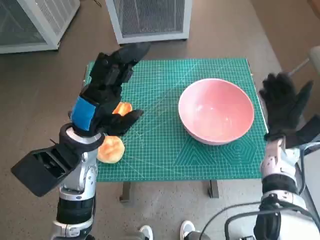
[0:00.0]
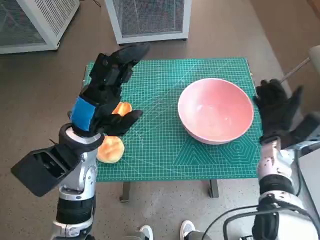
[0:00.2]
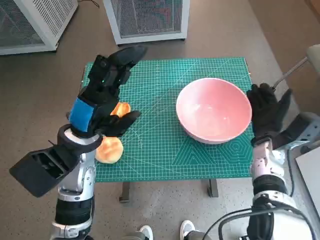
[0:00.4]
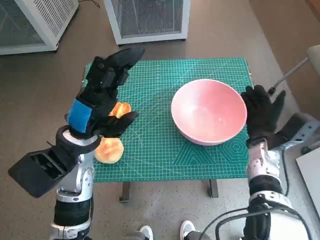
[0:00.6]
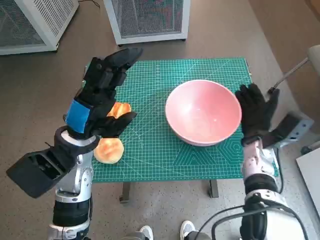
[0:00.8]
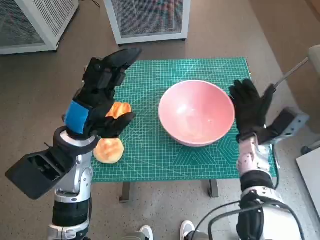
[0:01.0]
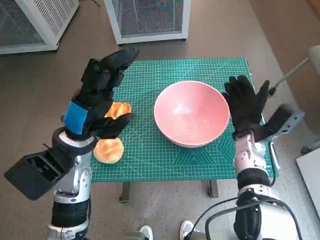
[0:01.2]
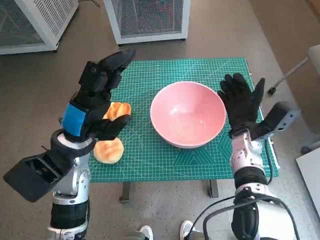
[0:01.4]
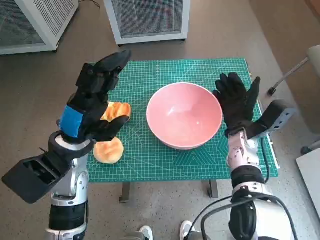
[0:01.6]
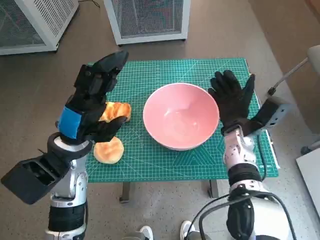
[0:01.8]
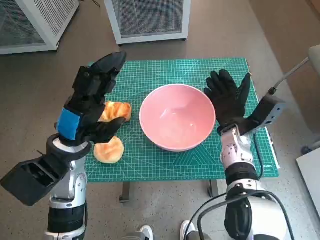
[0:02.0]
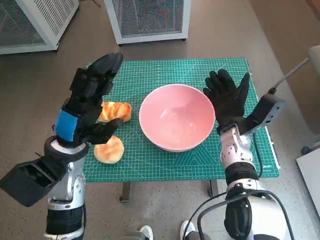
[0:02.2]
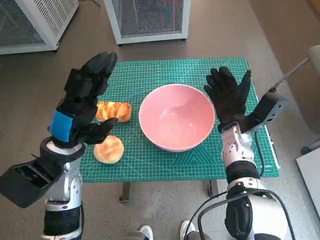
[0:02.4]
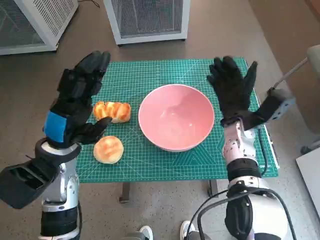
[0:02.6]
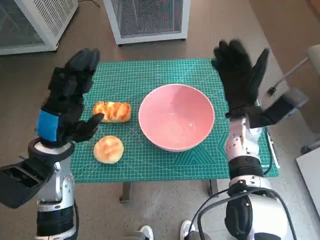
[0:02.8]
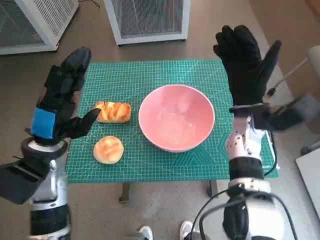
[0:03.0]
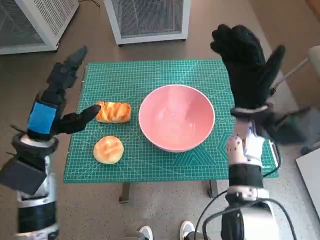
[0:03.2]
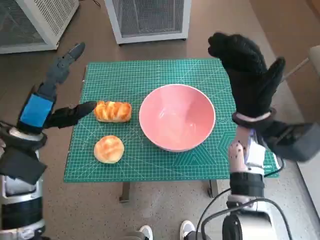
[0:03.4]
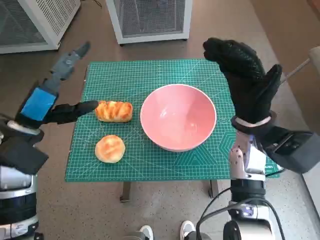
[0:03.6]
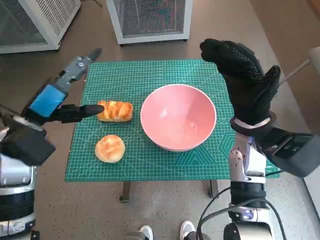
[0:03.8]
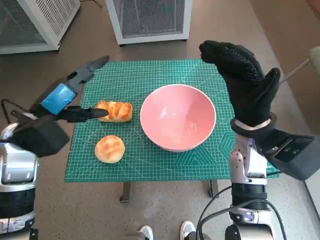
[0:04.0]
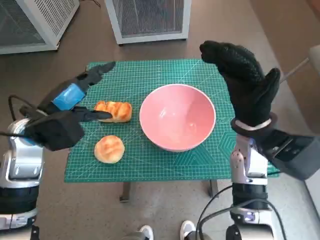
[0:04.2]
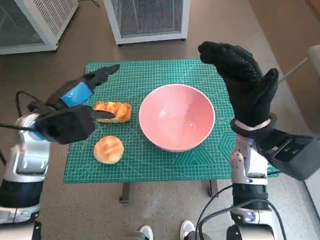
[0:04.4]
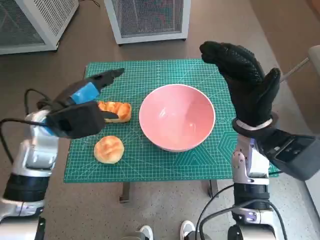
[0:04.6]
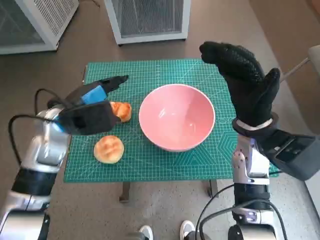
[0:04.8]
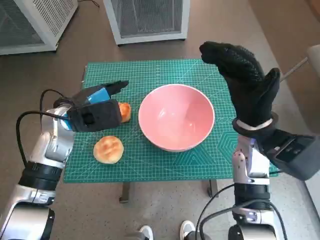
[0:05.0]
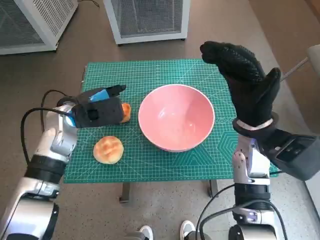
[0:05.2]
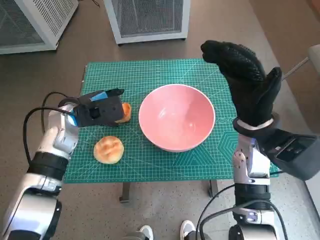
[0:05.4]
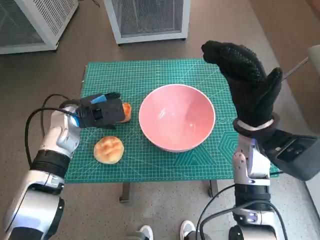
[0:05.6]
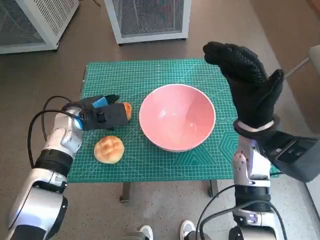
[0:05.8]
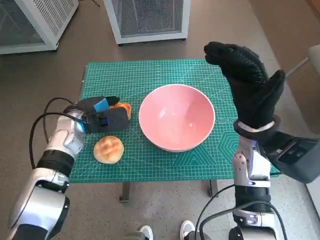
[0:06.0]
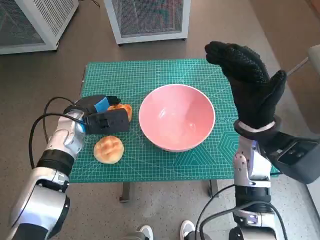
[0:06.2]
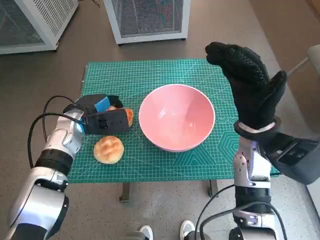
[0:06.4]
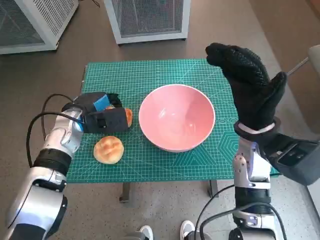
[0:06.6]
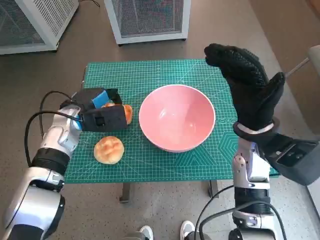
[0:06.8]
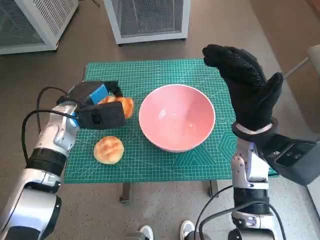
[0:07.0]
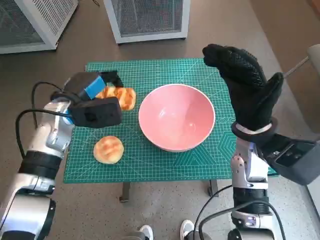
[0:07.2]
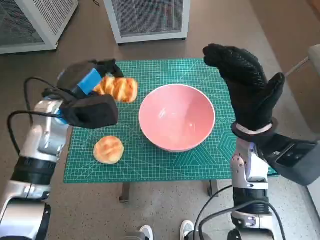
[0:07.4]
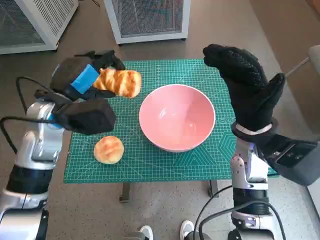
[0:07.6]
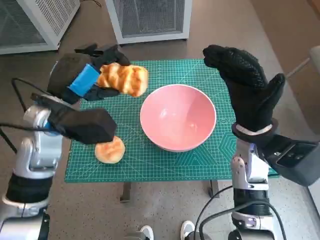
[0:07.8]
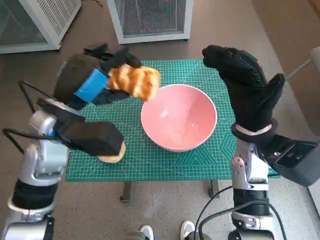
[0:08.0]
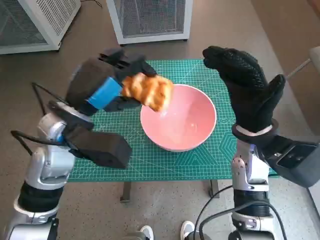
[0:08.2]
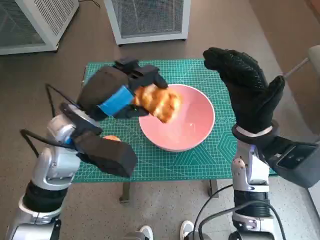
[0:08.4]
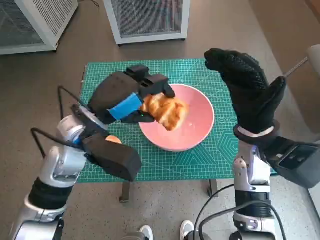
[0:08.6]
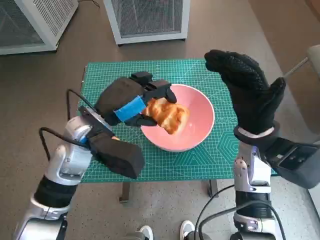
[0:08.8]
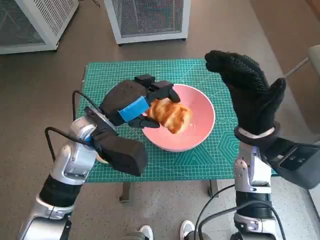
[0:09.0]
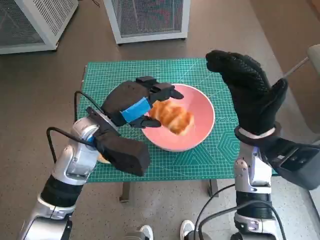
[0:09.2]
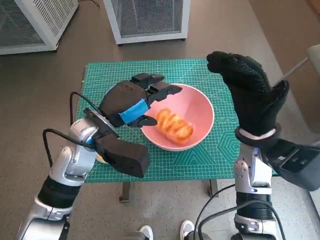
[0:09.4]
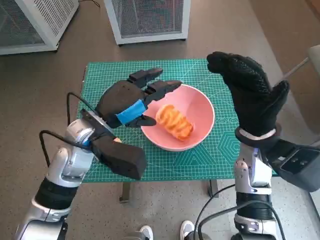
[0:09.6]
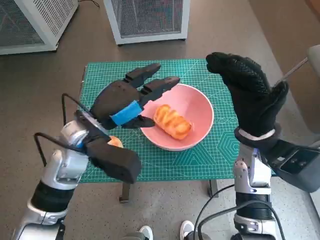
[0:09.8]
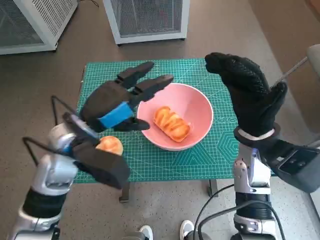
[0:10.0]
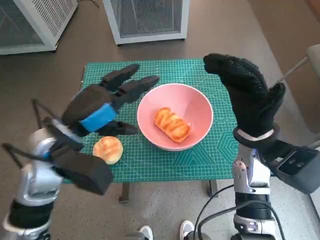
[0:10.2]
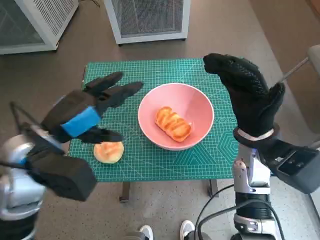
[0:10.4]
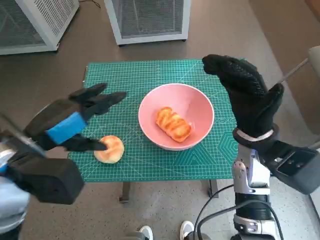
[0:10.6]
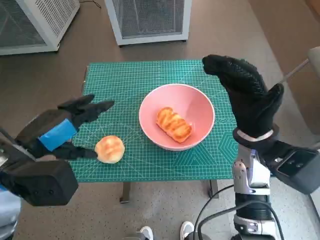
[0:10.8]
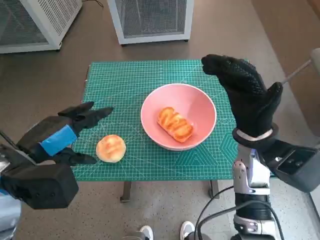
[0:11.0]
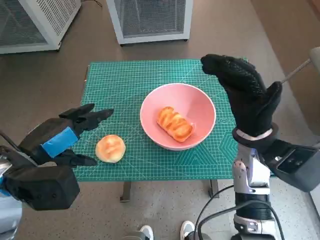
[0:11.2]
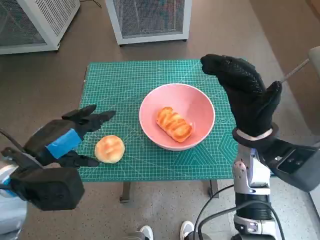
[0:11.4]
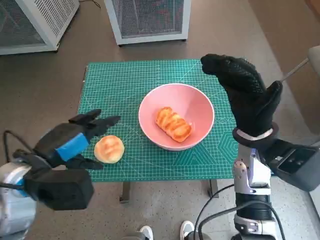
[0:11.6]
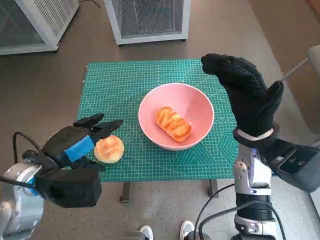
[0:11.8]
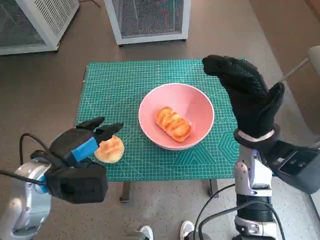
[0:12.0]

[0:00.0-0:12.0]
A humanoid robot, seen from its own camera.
Task of the whole recording: Push the bowl into the center of the table and put the bread into the bowl.
Step, 0:00.0 to 0:02.4: Move the pink bowl to the center of table with right hand.
Step, 0:02.6 to 0:06.2: Grasp the long bread with left hand.
Step, 0:06.4 to 0:09.2: Place the long bread in pink bowl with left hand.
0:00.0 to 0:01.6: The right hand moves to the left, approximately 10 cm.
0:01.6 to 0:03.0: The right hand is displaced upward by some 5 cm.
0:03.0 to 0:04.4: The right hand shifts by roughly 5 cm, while the left hand changes place by approximately 5 cm.
0:04.4 to 0:06.0: The left hand is displaced downward and forward by about 10 cm.
0:06.0 to 0:07.6: The left hand is displaced upward by roughly 10 cm.
0:07.6 to 0:09.0: The left hand goes some 5 cm to the right.
0:09.0 to 0:10.4: The left hand travels to the left and backward by some 10 cm.
0:10.4 to 0:12.0: The left hand shifts approximately 5 cm downward.

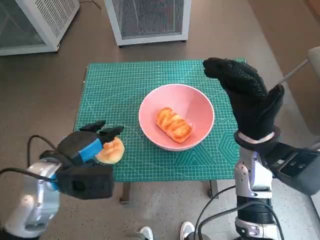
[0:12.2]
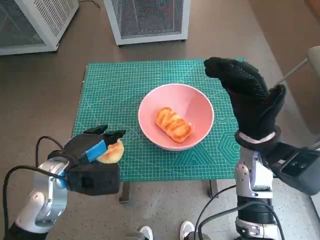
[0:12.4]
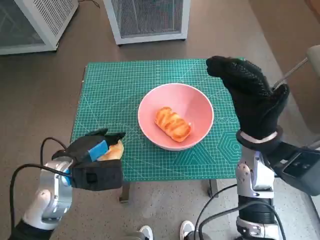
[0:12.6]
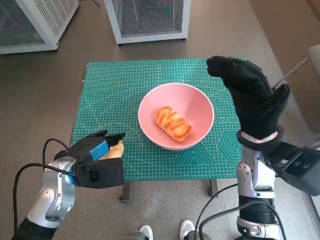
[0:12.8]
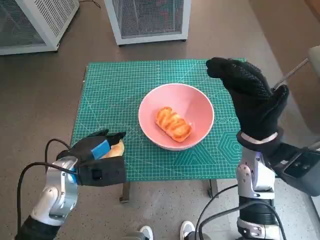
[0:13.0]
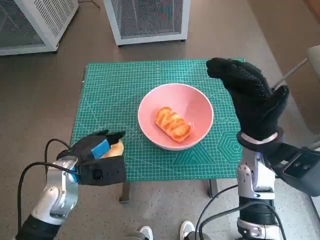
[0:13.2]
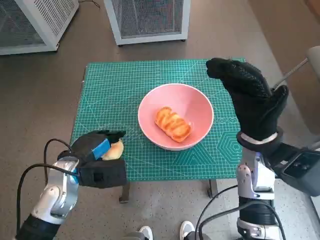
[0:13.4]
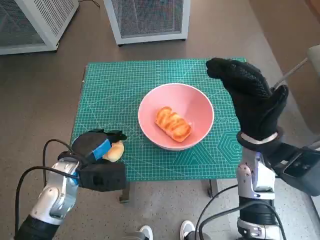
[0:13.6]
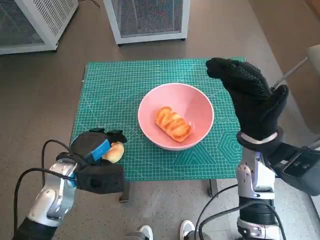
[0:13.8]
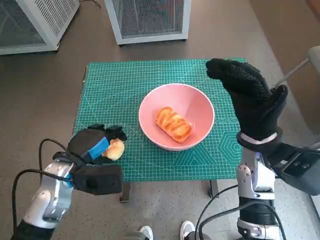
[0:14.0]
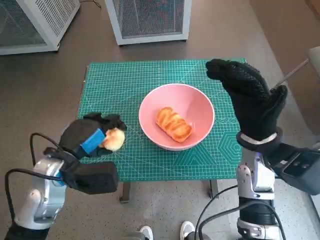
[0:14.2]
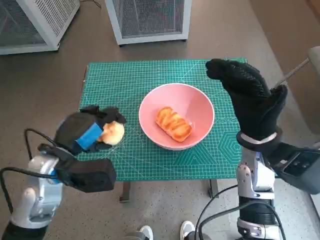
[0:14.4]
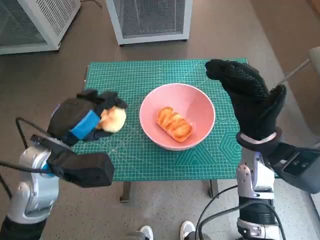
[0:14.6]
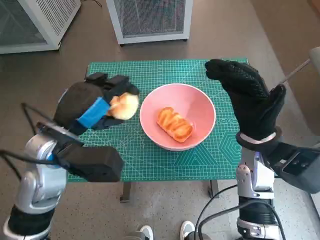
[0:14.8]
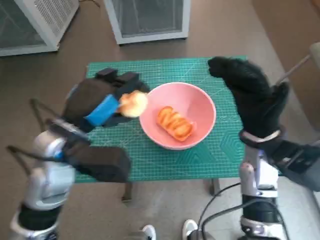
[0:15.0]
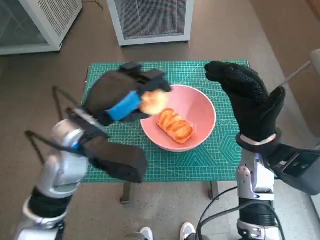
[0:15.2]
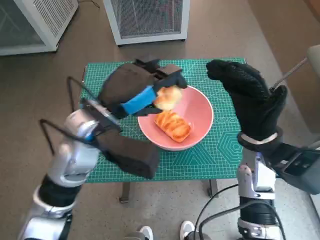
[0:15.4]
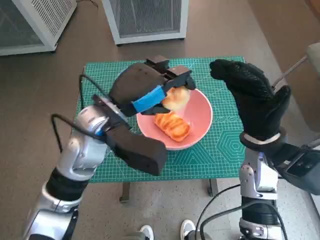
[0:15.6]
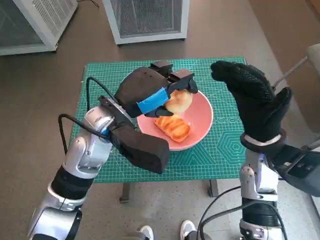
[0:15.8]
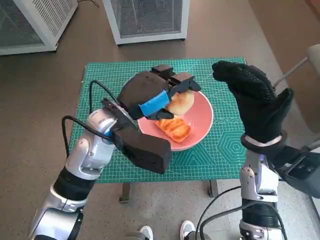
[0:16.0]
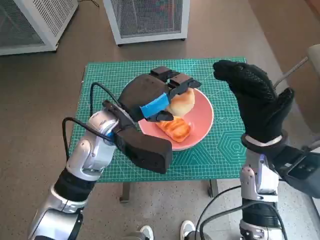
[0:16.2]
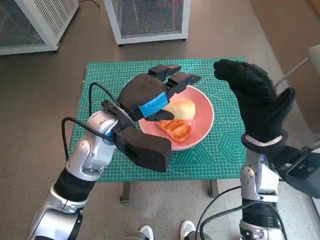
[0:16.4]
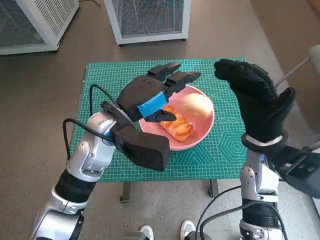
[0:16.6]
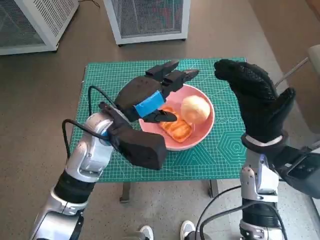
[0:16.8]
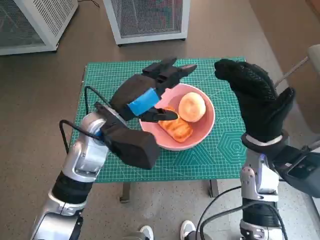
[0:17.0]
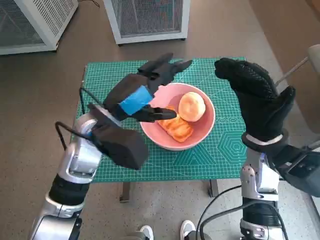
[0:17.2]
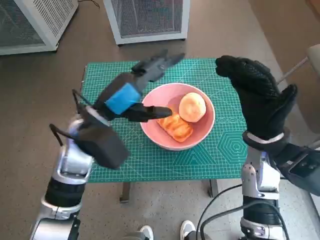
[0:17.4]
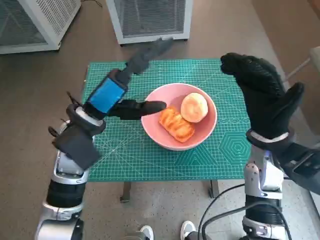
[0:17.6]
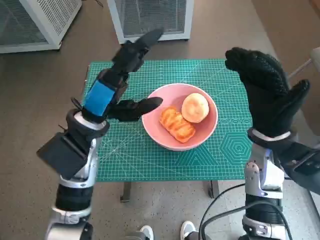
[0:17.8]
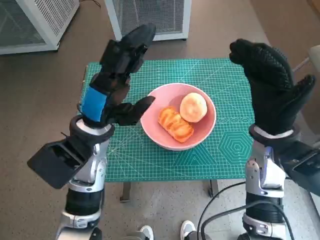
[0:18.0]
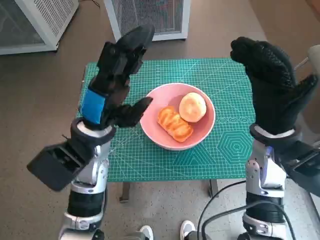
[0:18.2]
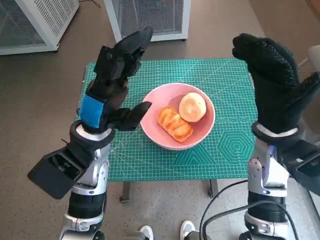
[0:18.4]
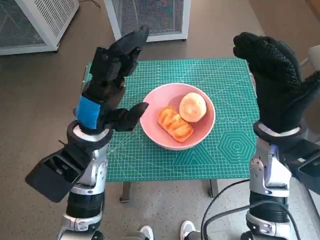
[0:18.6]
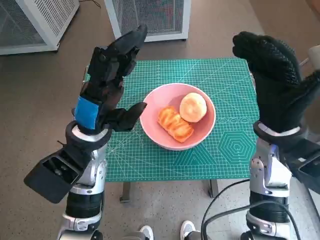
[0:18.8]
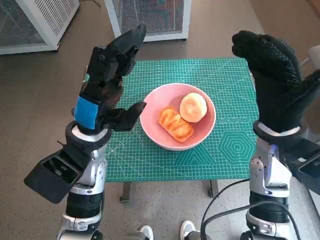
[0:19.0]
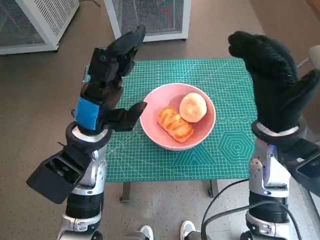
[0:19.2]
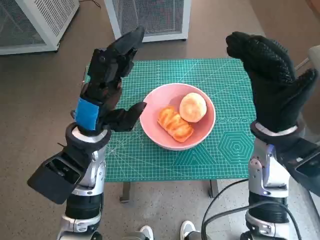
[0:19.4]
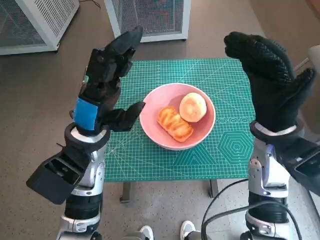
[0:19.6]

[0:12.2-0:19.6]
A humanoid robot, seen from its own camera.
Task of the whole recording: Push the bowl into the center of the table and put the bread into the bowl.
Step, 0:13.6 to 0:16.8: Place the round bread in pink bowl with left hand.
0:12.2 to 0:13.6: The left hand goes about 5 cm downward.
0:13.6 to 0:15.2: The left hand shifts some 15 cm upward and to the right.
0:15.2 to 0:16.6: The left hand changes place by approximately 5 cm.
0:18.2 to 0:19.6: The hands stay close to where they were, moving slightly.

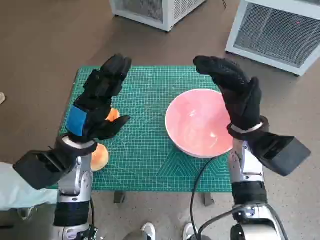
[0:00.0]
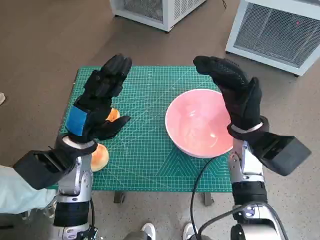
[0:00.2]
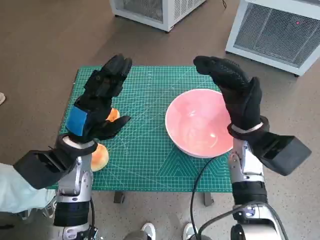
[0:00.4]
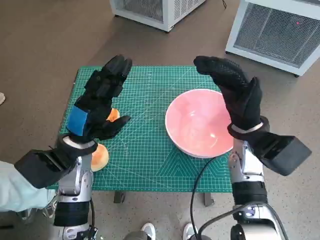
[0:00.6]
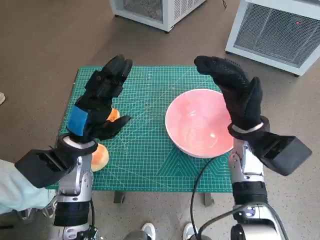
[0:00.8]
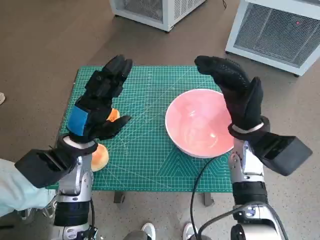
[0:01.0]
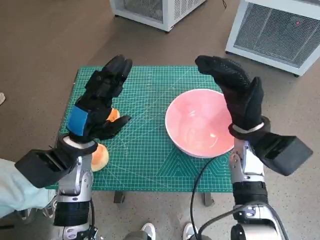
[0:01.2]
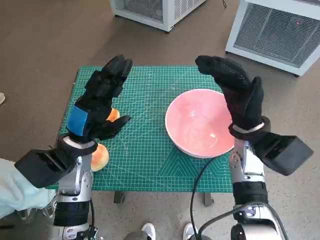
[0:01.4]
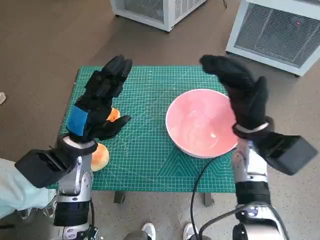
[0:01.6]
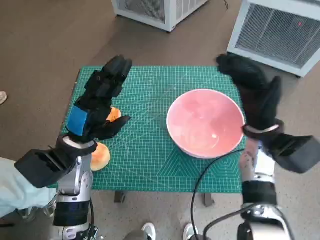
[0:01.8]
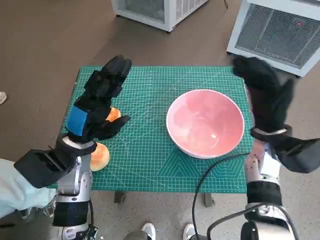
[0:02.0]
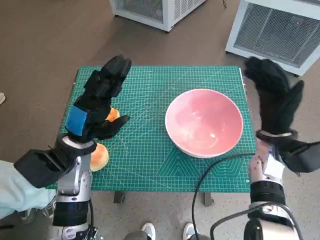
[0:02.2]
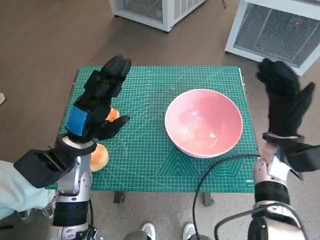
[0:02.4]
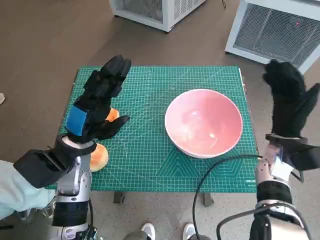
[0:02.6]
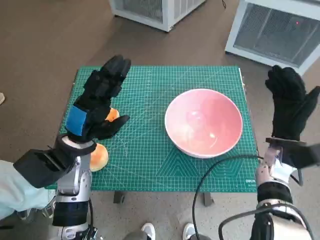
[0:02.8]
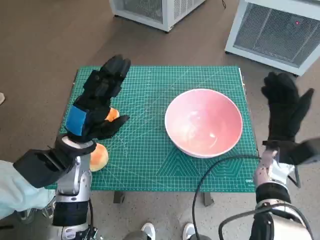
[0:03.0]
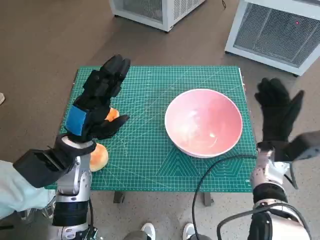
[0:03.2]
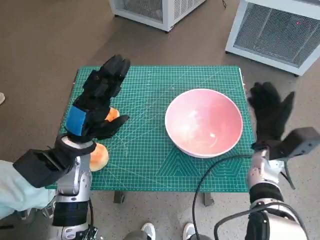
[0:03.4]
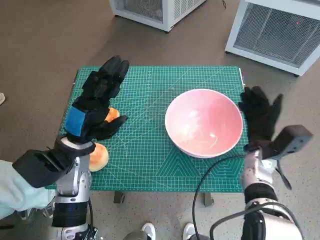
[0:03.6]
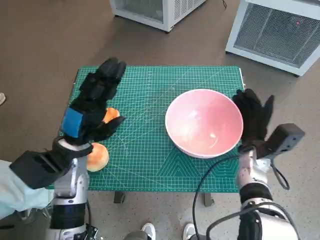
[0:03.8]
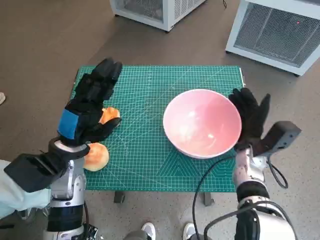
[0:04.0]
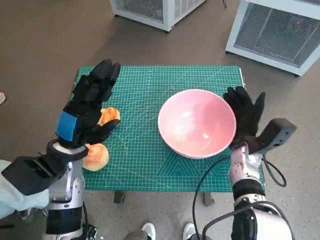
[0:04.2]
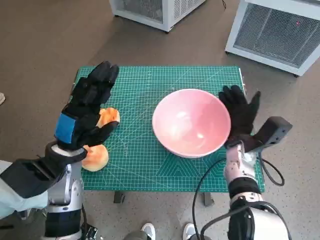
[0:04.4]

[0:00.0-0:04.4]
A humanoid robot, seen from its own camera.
Task of the whole recording: Push the bowl into the center of the table and put the bread into the bowl.
0:01.4 to 0:03.0: The right hand is displaced to the right and downward by approximately 10 cm.
0:03.0 to 0:04.4: The right hand goes about 5 cm to the left.
